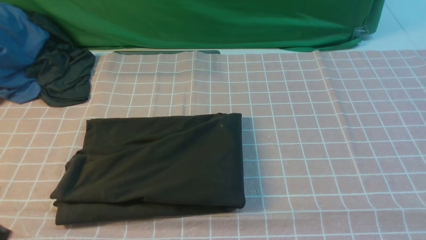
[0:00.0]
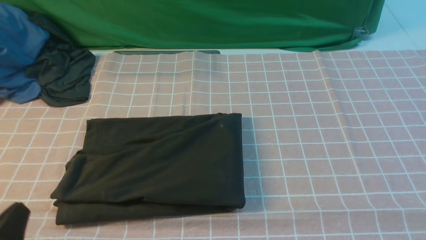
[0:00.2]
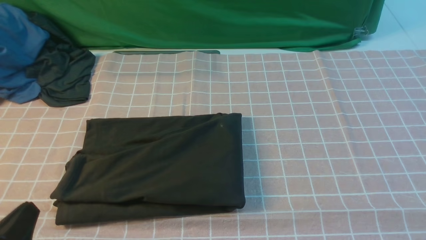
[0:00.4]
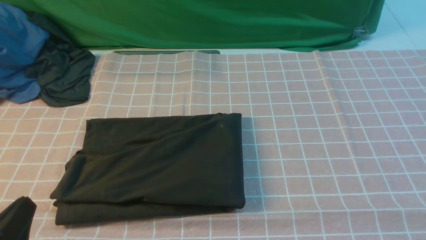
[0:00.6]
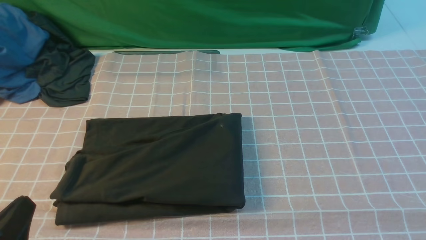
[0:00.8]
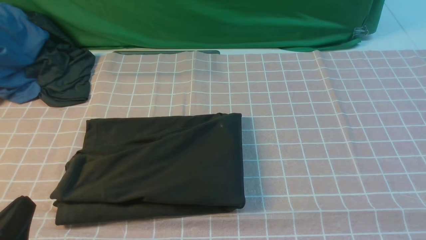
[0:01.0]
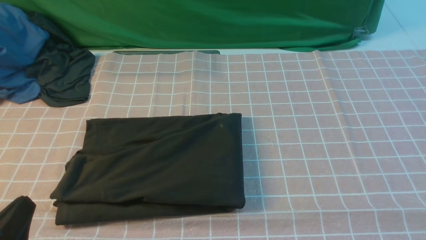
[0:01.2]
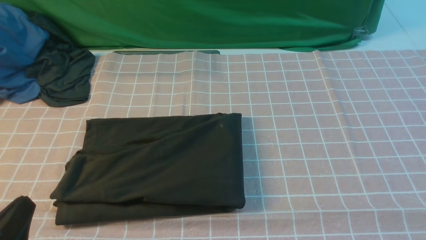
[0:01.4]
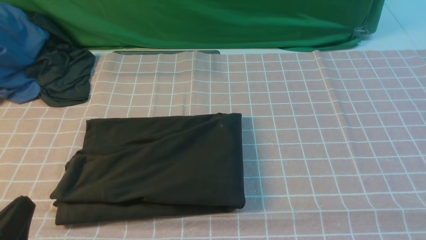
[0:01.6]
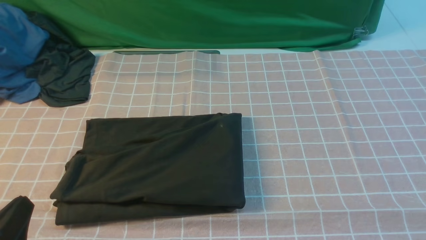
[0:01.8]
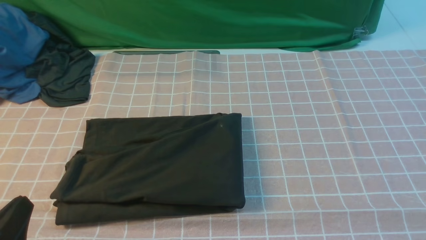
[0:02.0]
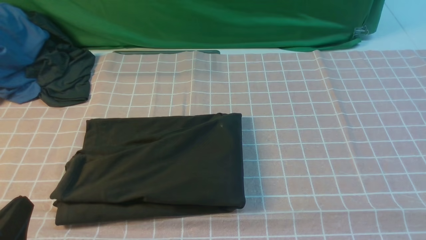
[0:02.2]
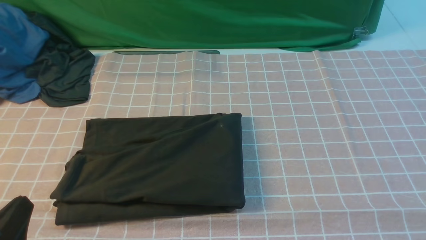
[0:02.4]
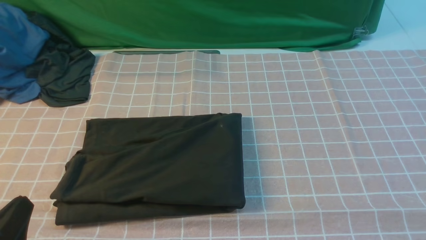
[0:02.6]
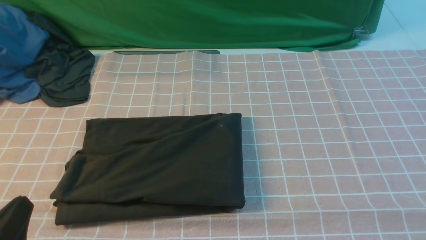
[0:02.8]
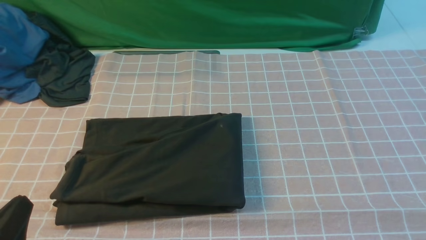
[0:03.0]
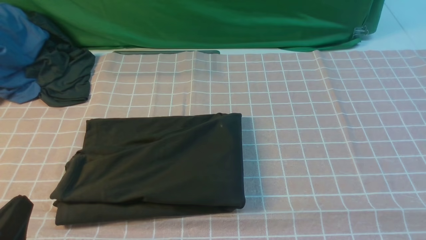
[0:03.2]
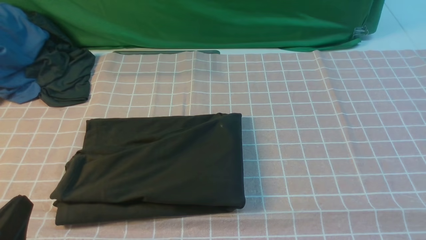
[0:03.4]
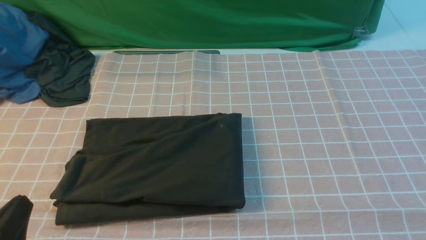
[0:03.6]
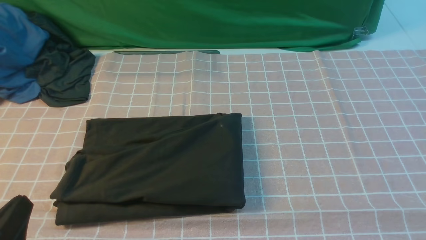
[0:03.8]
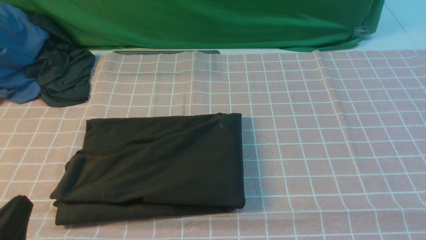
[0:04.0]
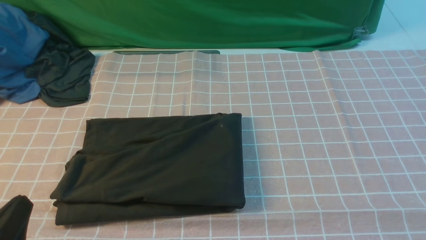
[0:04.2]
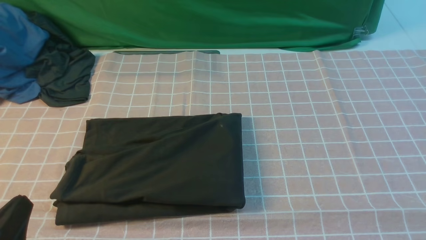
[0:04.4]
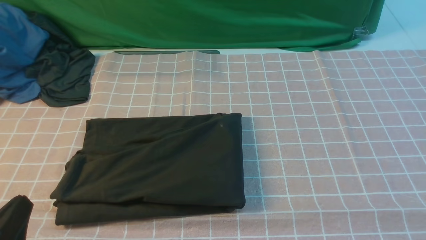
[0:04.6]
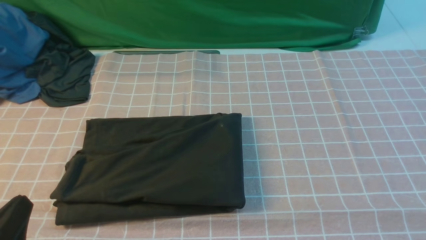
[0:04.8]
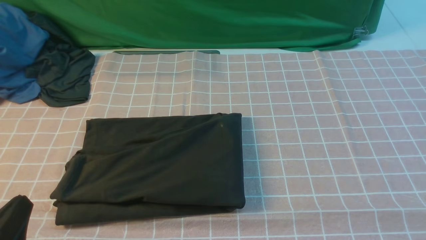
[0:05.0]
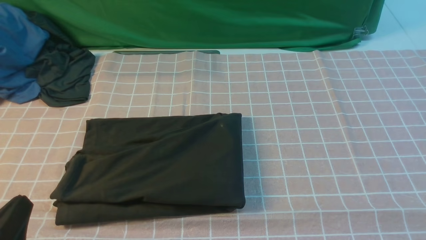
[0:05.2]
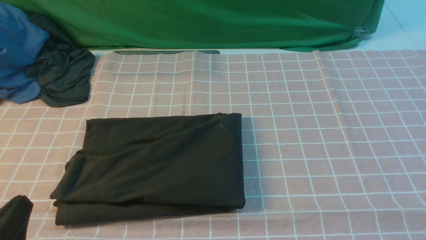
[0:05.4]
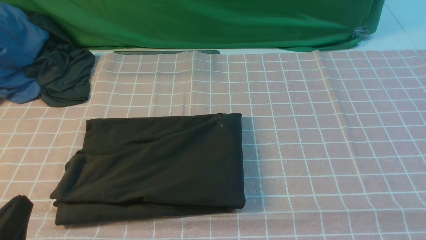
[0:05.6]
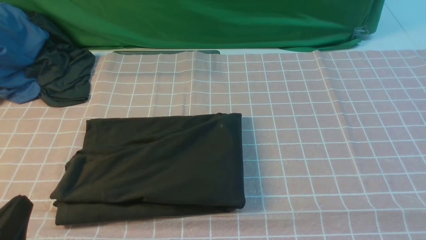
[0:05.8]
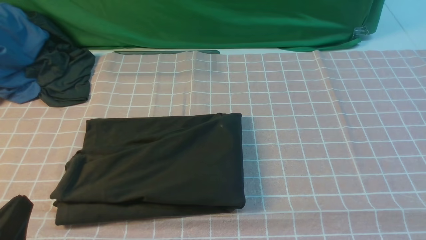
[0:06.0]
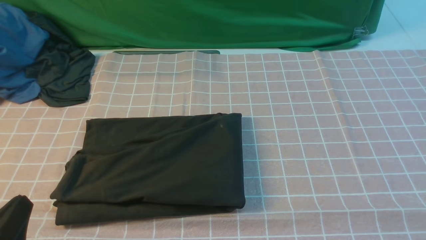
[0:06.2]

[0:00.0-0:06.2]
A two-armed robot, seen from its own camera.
0:00.0 to 0:01.6: The left gripper goes roughly 5 cm downward.
0:03.2 to 0:06.2: Both grippers stay about where they are.
